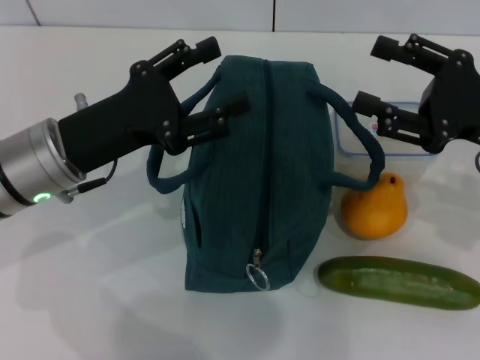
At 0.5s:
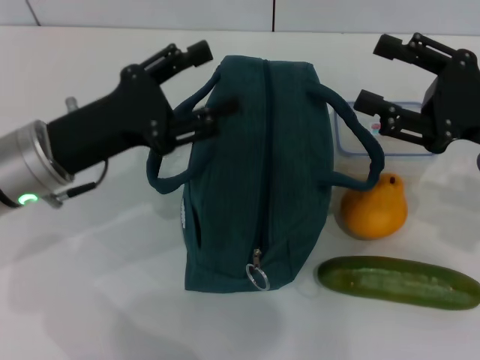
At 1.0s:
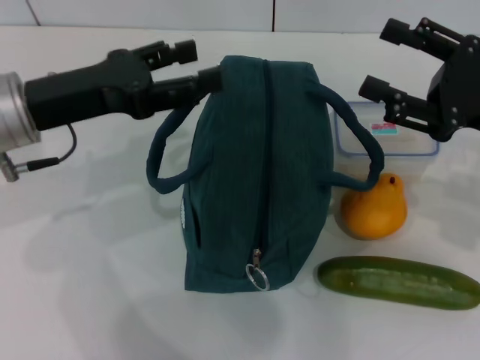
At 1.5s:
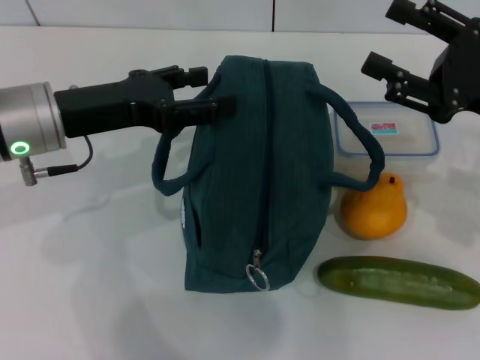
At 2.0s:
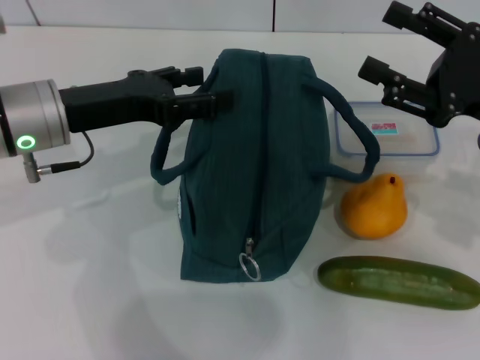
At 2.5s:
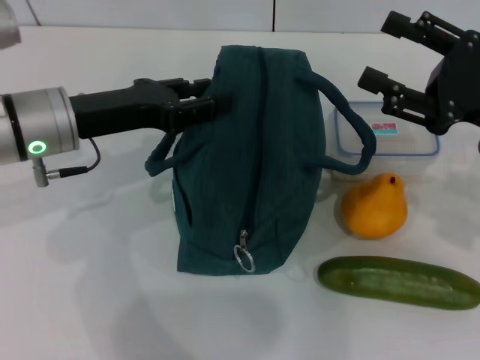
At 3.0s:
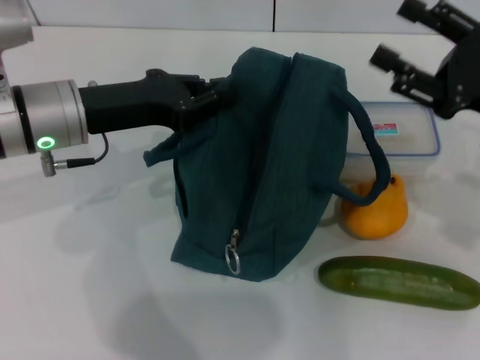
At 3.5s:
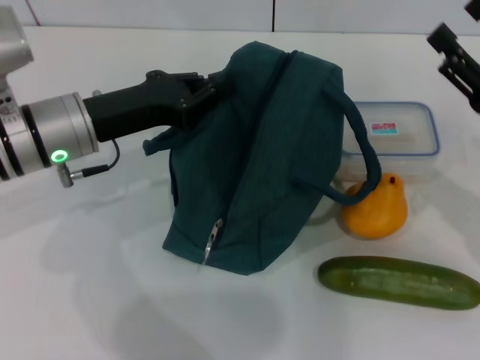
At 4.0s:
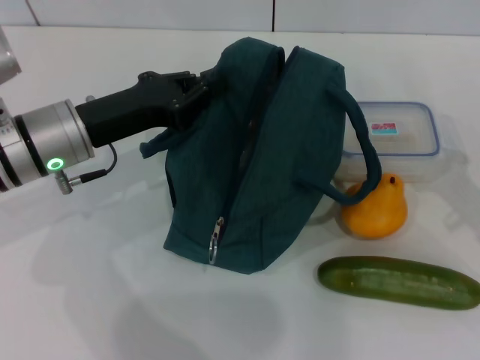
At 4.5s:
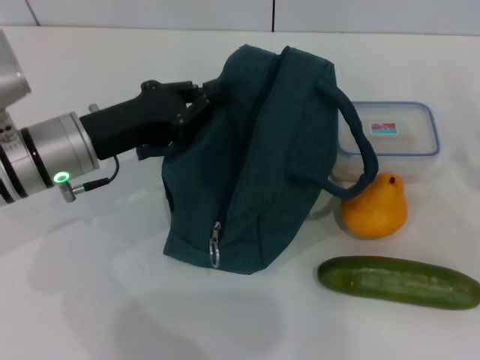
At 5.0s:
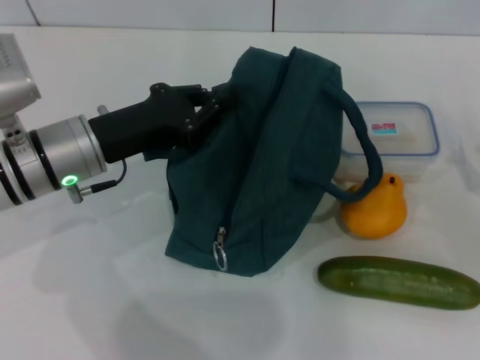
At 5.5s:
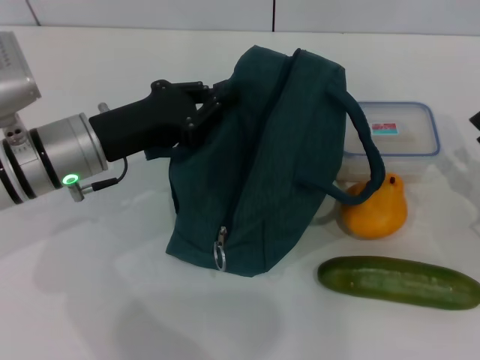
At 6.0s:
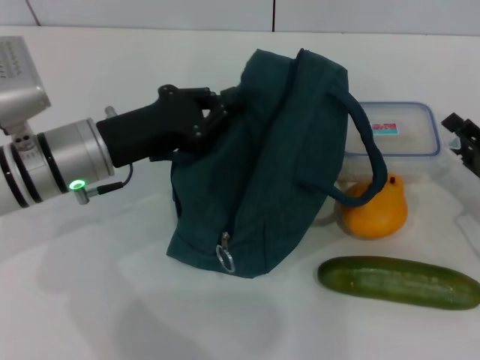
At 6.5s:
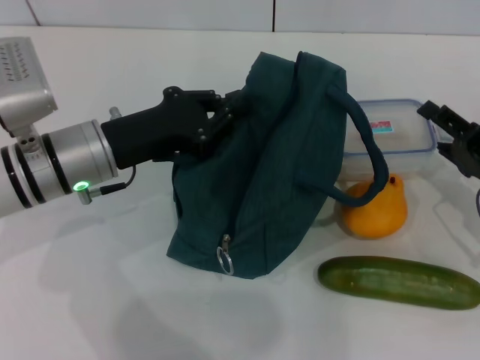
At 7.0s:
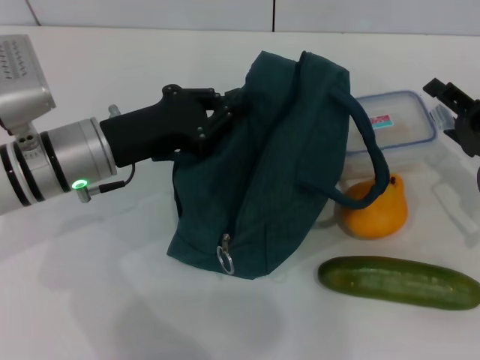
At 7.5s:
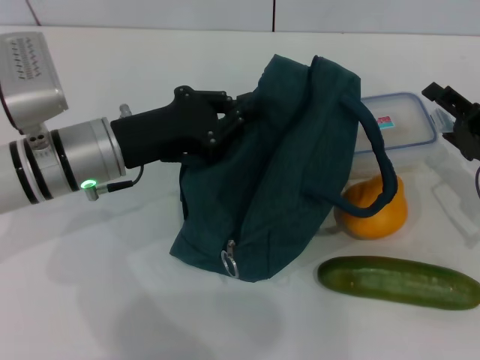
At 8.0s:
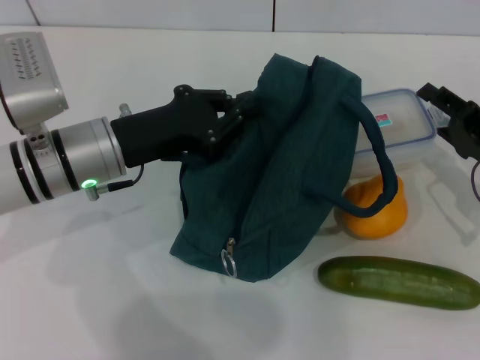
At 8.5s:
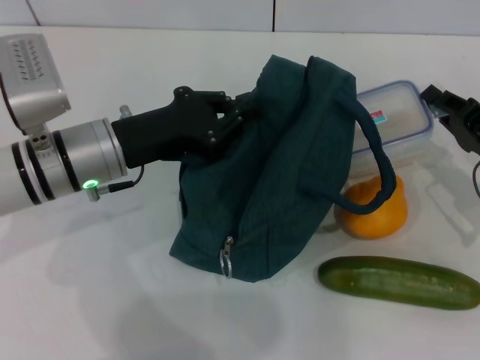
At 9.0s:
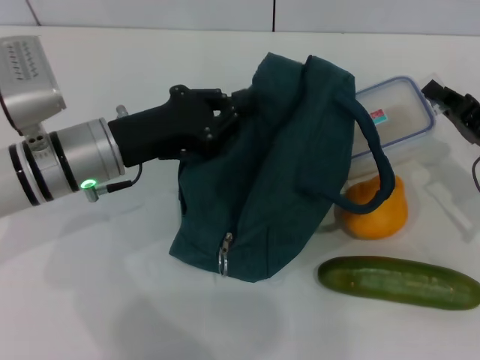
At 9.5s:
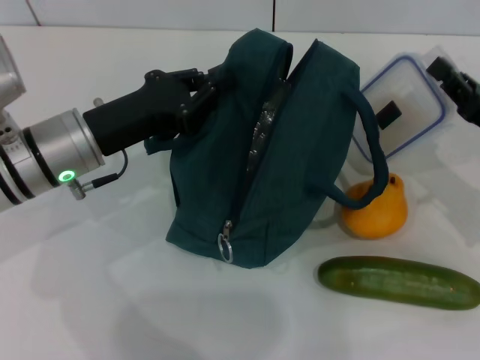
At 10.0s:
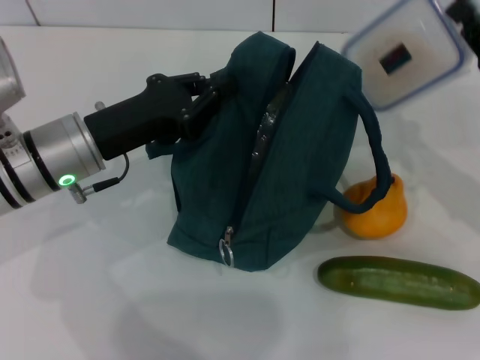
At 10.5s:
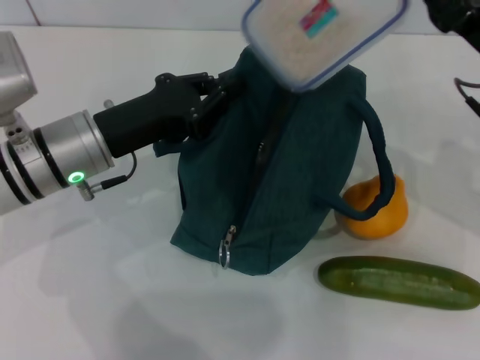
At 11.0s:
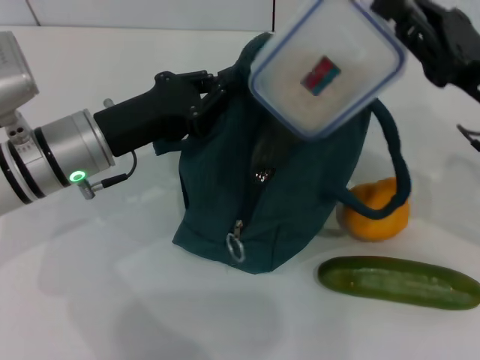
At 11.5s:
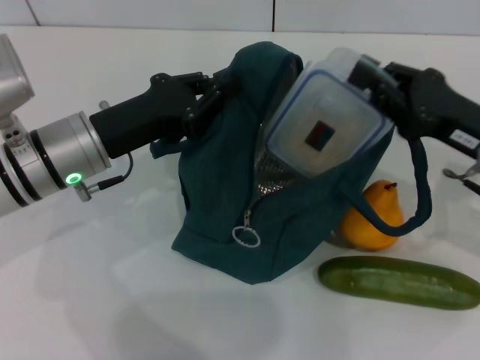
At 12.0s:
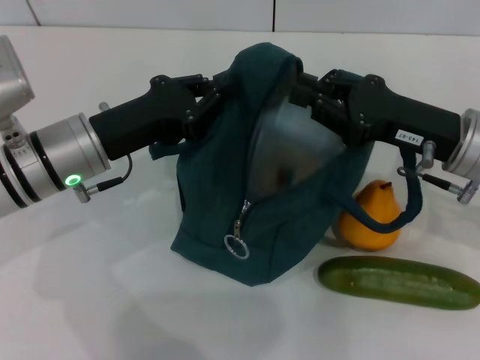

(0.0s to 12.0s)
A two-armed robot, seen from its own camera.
Step, 0.0s - 3.0s: Hold the lunch bag with your left hand.
Step, 3.5s - 8.0s: Pick up the lunch box with your right hand.
2.0s - 4.0s: The right gripper shifts approximately 10 cm downward and backward. Meanwhile the left gripper closes its fingers.
4.0s - 6.0s: The right gripper travels downward by about 5 cm.
6.0s - 8.0s: The right gripper ends up about 5 cm from where it was.
8.0s - 10.0s: The right gripper shifts some 5 cm upward, and closes up.
10.0s - 12.0s: The right gripper travels to the left by roughly 10 cm.

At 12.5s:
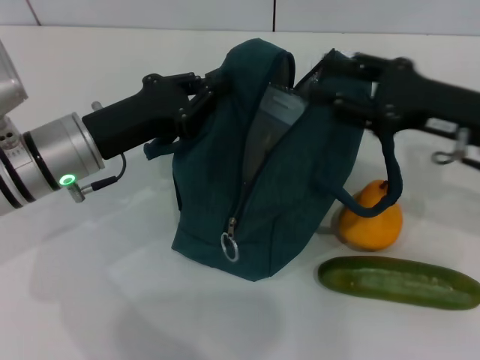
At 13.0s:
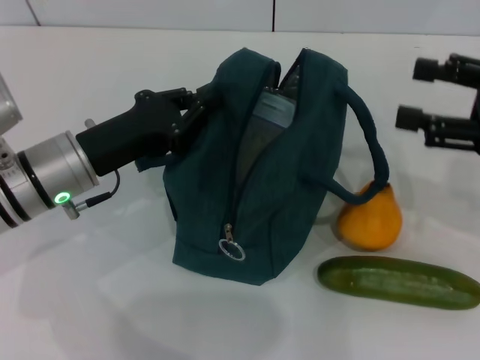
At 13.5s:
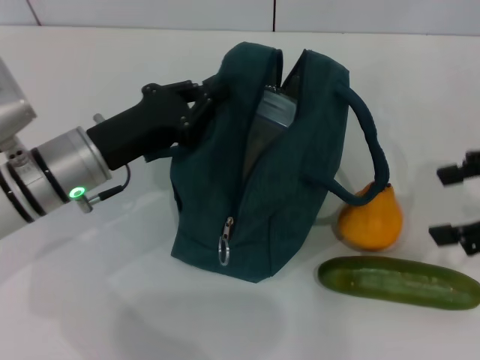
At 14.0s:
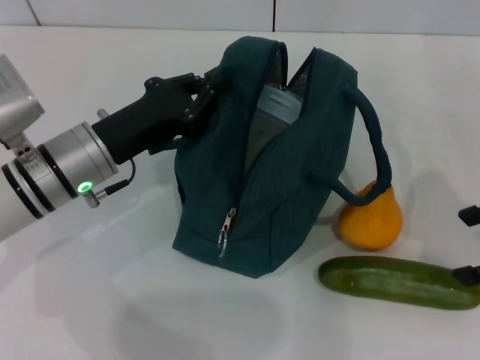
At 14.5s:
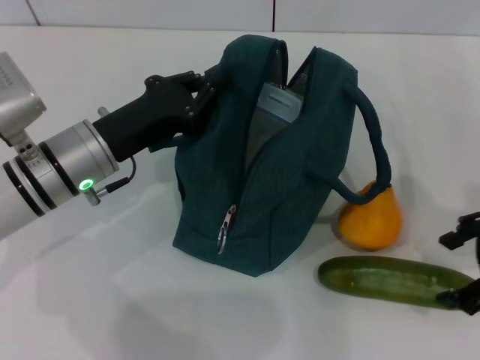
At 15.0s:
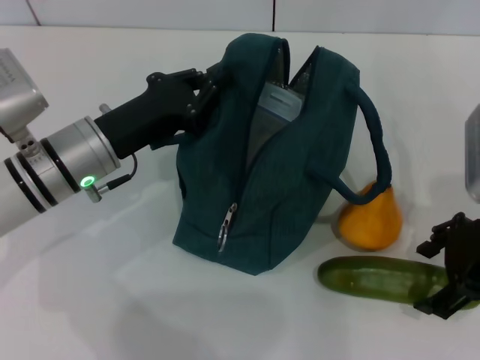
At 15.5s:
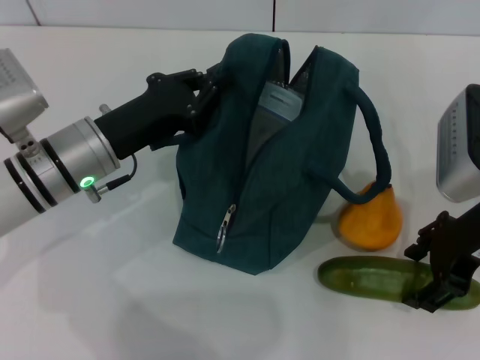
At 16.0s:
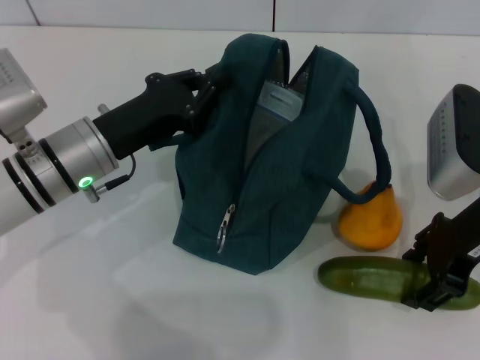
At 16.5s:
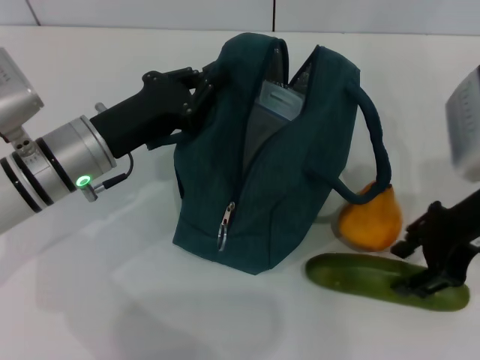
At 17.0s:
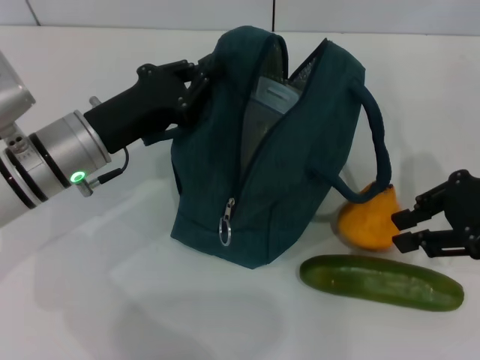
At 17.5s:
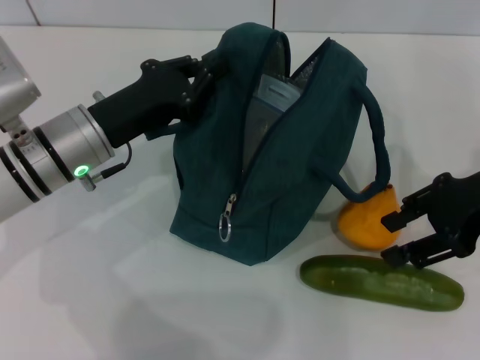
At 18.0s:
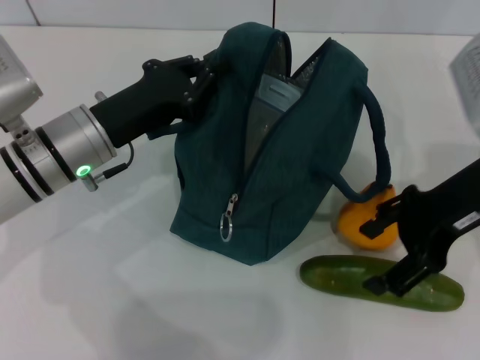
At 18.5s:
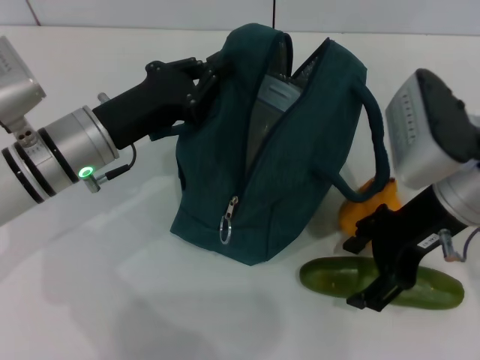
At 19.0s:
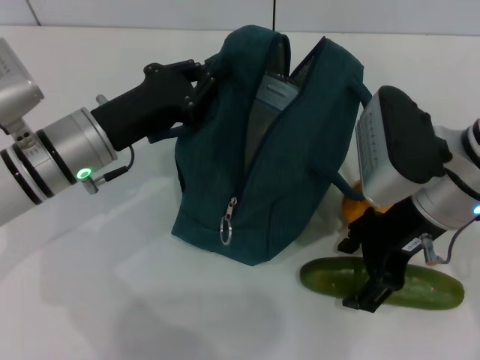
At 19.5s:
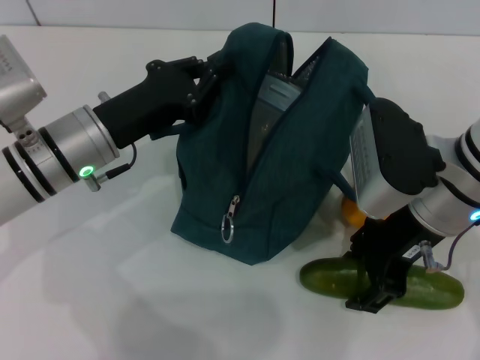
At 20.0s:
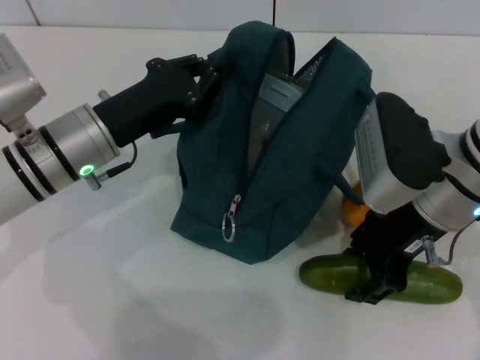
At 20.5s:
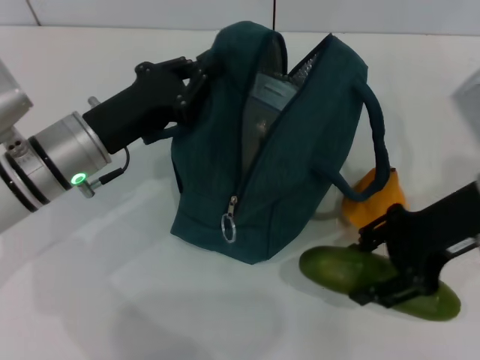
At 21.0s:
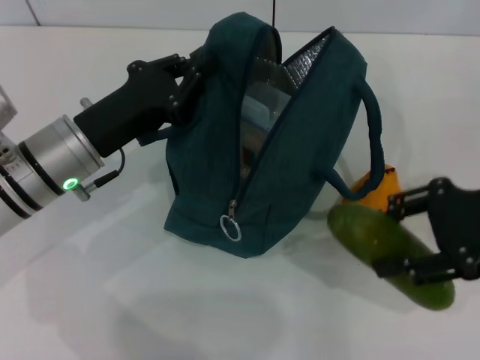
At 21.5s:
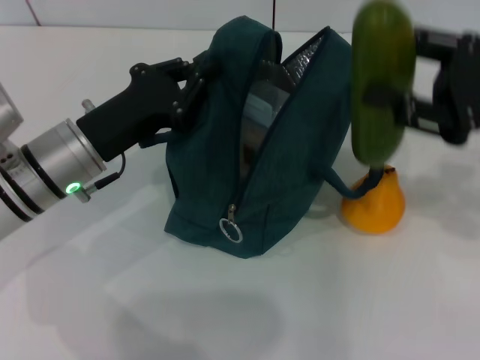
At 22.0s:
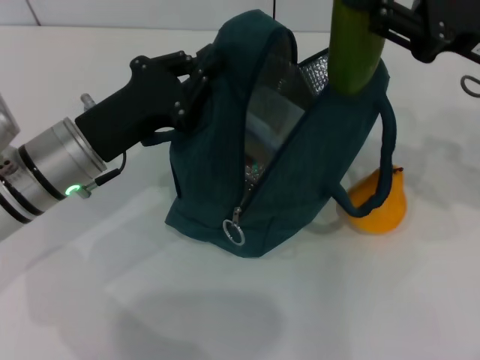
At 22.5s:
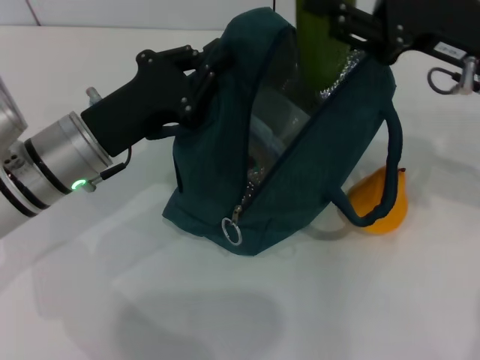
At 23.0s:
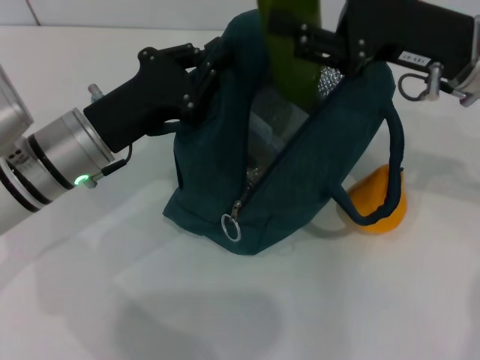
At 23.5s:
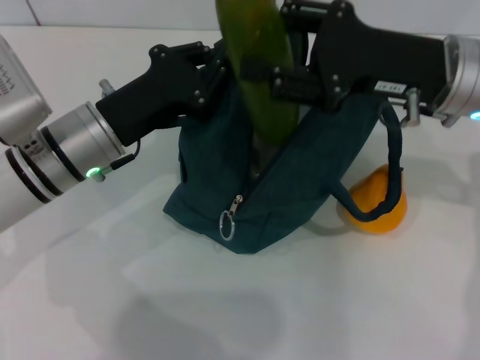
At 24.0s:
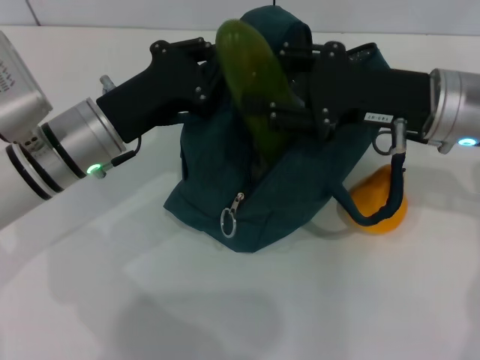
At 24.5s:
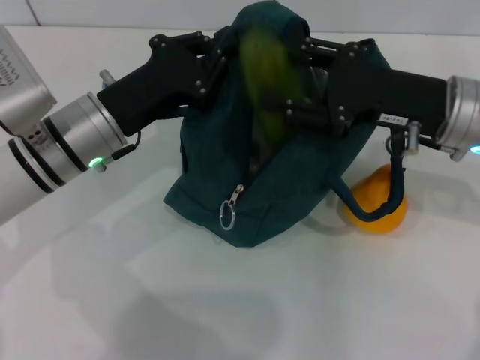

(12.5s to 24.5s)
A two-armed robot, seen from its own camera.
Step, 12.5s - 19.5s: Pick up the cucumber with your right hand.
12.5s - 14.5s: The right gripper goes some 5 cm backward, and opens its fingers.
14.5s - 16.5s: The right gripper changes place by roughly 5 cm.
16.5s - 18.5s: The right gripper opens.
18.5s - 20.5s: The right gripper closes up.
20.5s - 22.5s: The right gripper is displaced forward by roughly 5 cm.

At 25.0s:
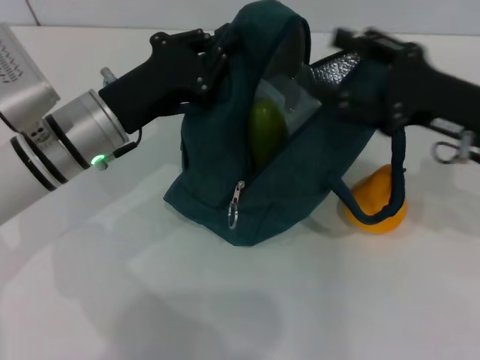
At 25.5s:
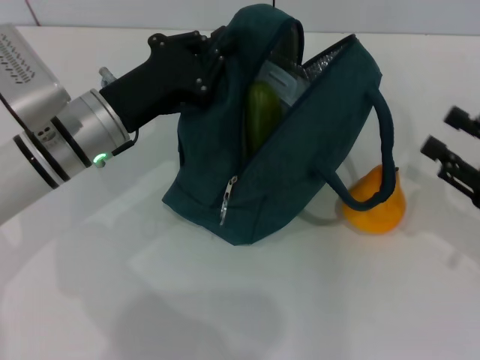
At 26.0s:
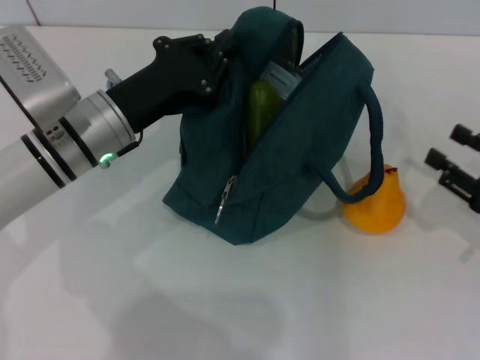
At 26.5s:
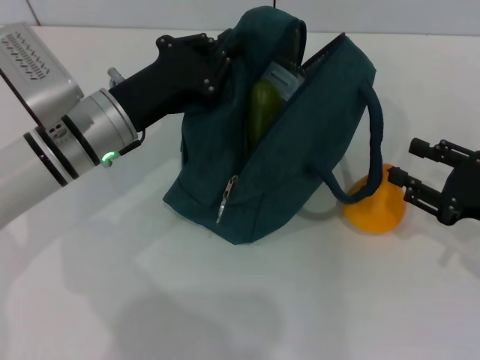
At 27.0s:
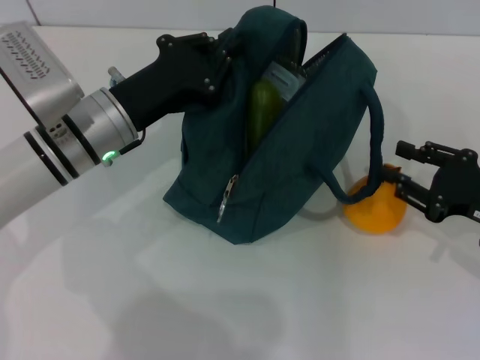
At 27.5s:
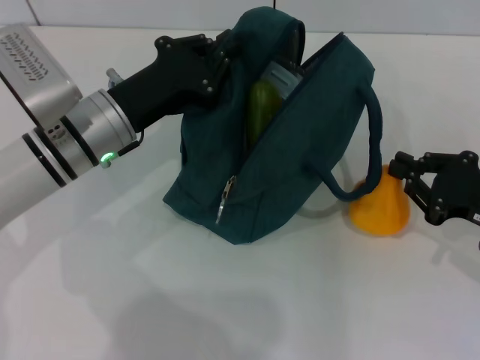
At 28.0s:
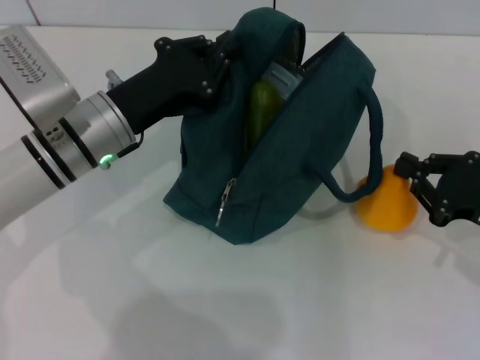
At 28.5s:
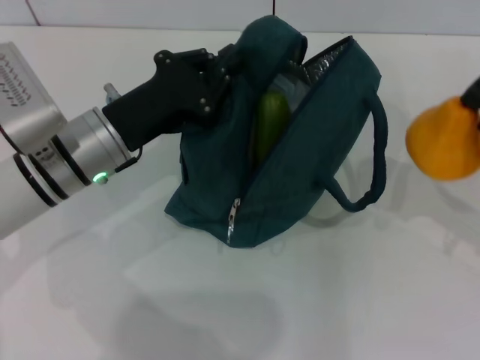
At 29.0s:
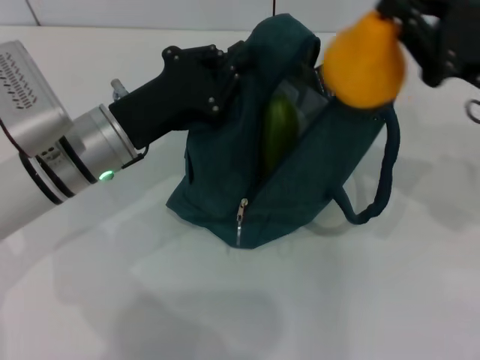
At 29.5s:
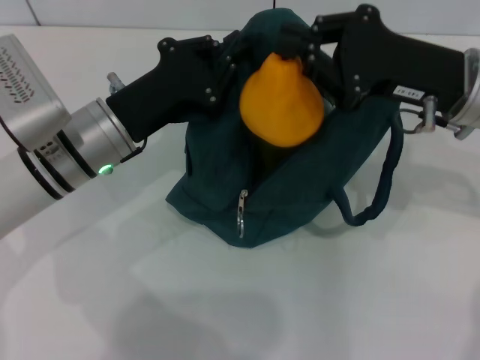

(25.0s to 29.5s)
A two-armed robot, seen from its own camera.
Step, 25.0s - 27.5s: Grab the pear with your right hand.
25.0s - 27.0s: The right gripper travels downward and to the right by approximately 10 cm.
27.0s - 29.5s: The right gripper goes about 15 cm upward, to the left and forward, and closes.
